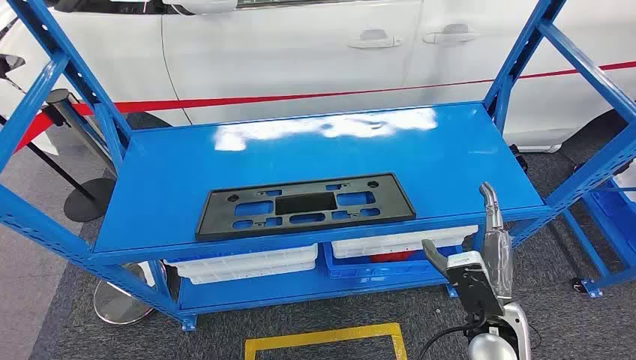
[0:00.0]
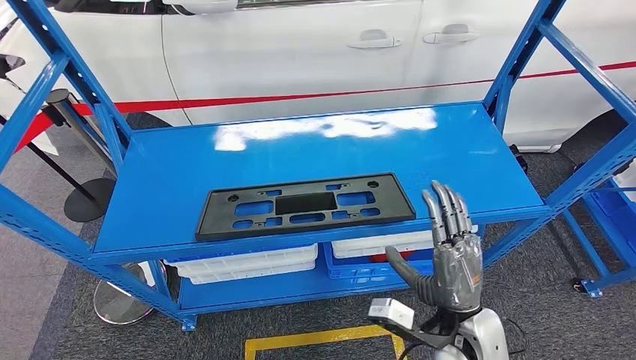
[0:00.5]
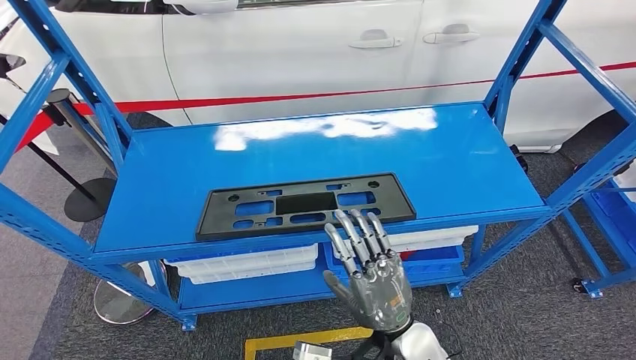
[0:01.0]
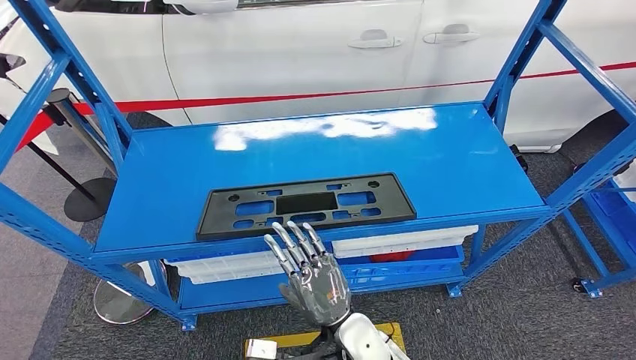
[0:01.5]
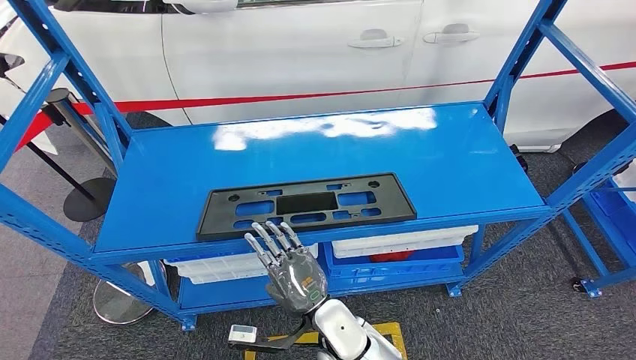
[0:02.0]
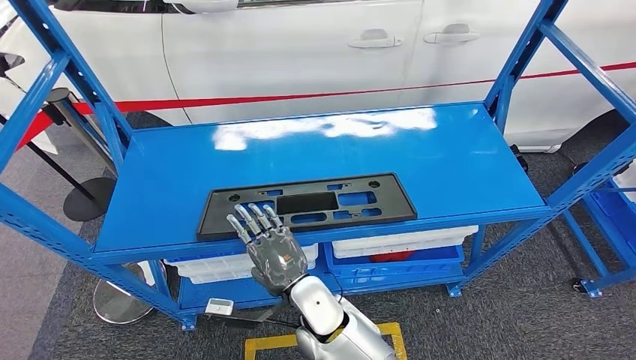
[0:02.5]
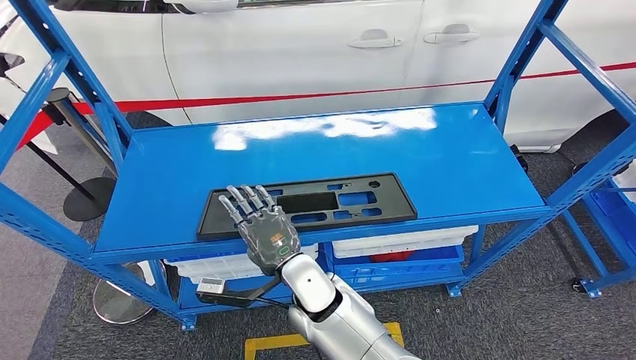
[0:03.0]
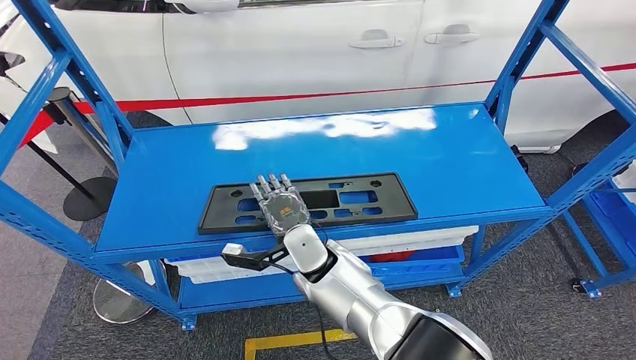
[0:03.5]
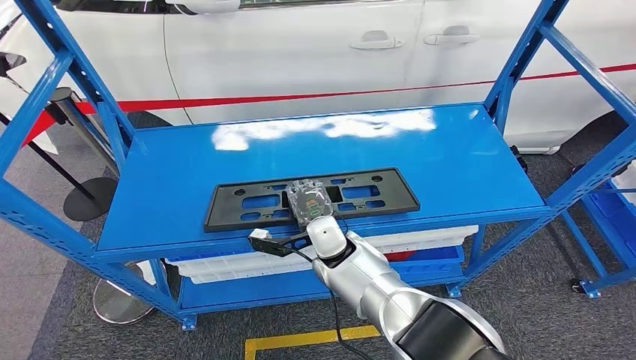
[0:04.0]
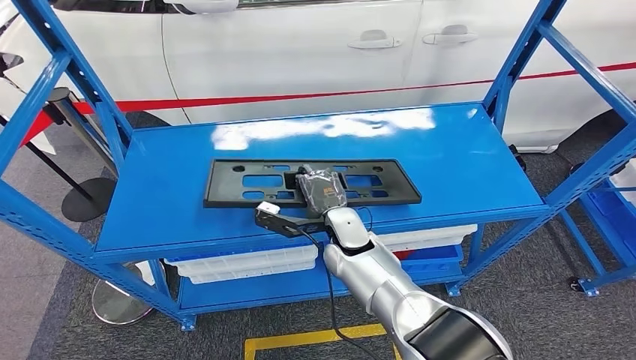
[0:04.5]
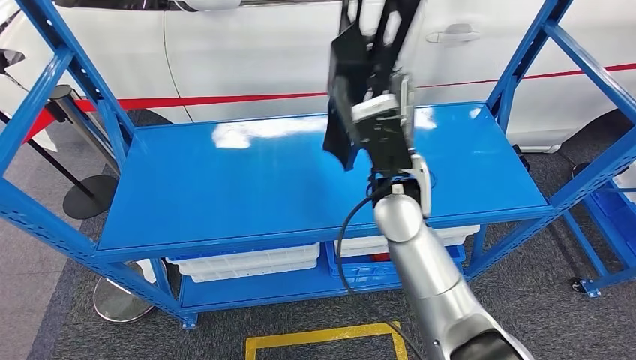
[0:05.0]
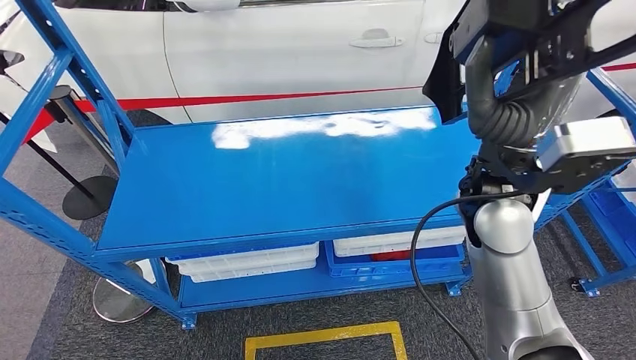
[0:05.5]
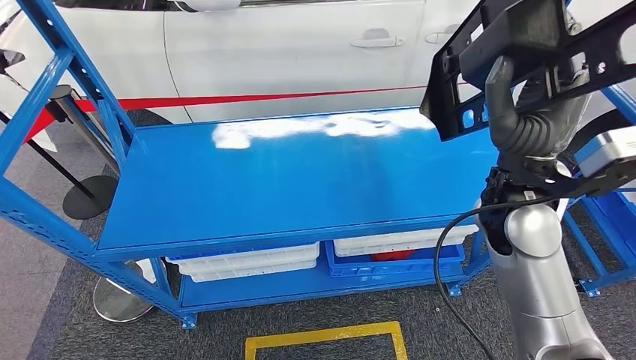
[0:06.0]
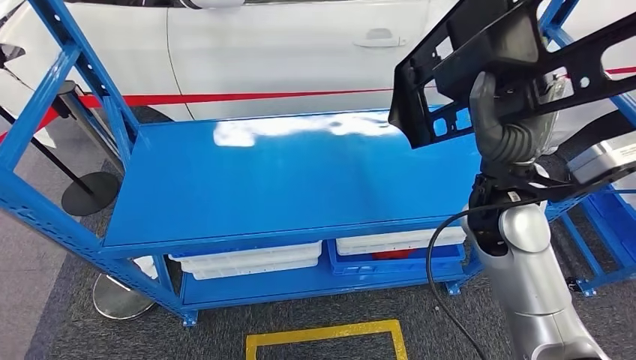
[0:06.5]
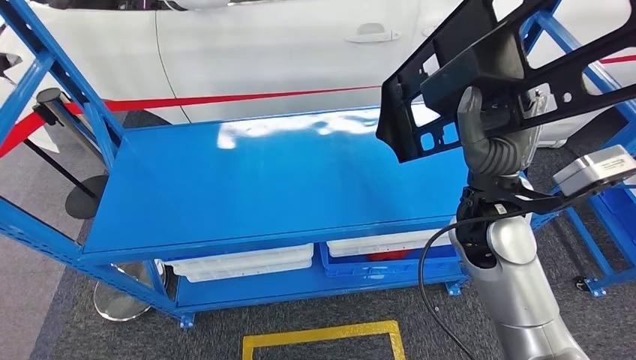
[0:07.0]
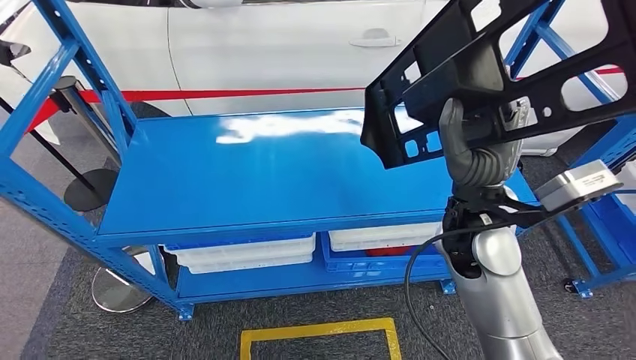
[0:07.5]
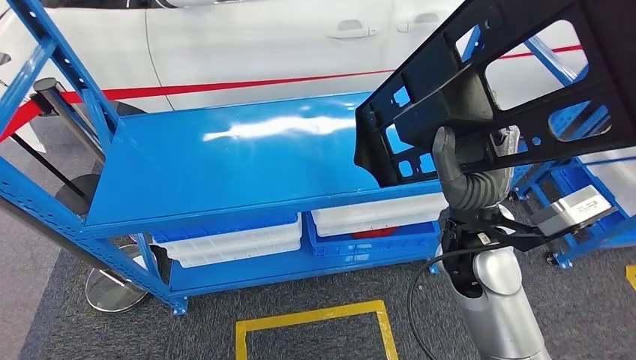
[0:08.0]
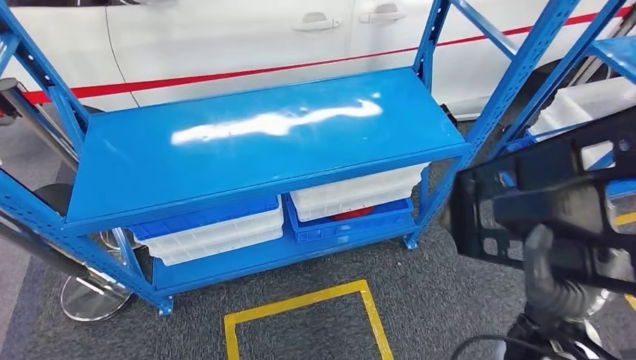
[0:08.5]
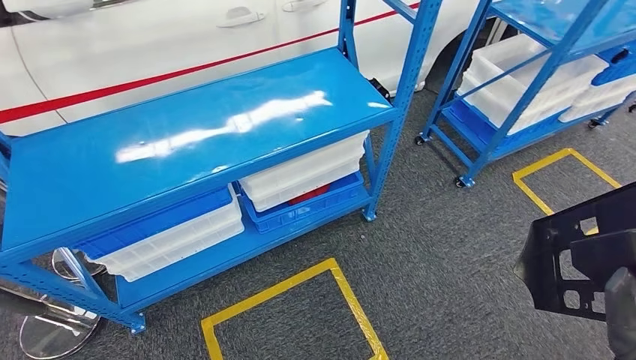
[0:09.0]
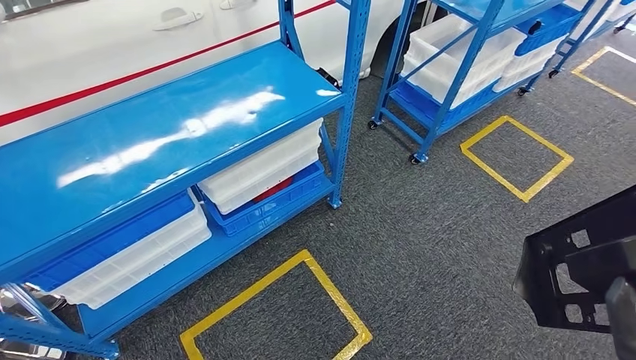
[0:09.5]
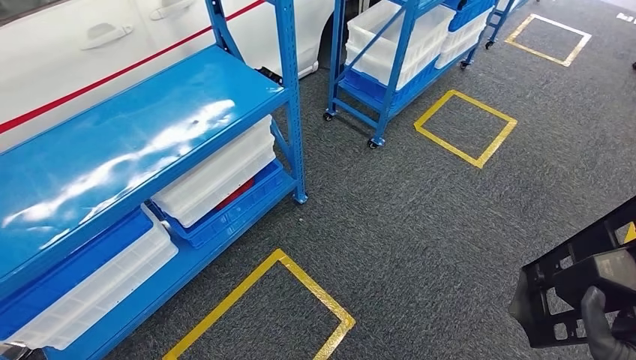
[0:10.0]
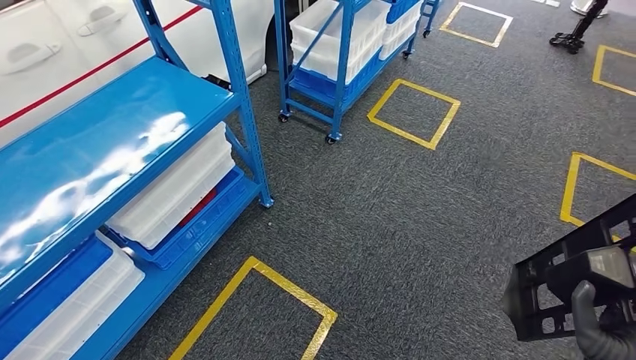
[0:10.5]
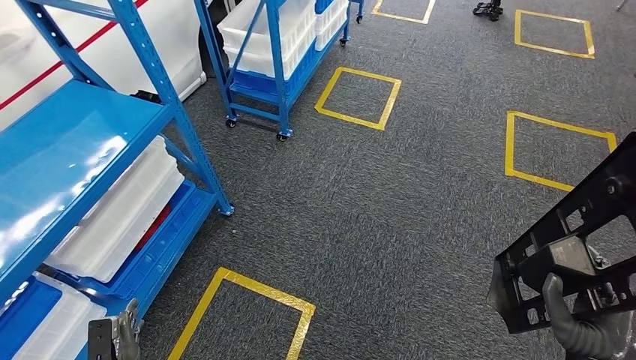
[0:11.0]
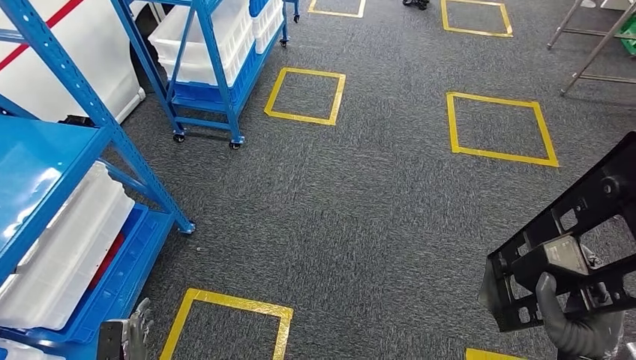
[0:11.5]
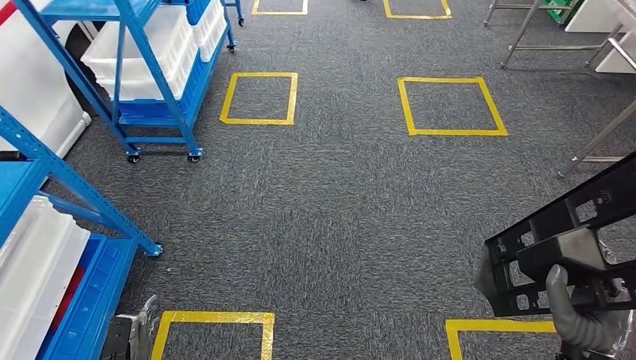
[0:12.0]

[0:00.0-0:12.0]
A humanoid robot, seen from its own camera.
Step, 0:00.0 to 0:06.0: Pick up the large material from the shelf.
0:02.0 to 0:04.0: The right hand goes roughly 15 cm forward.

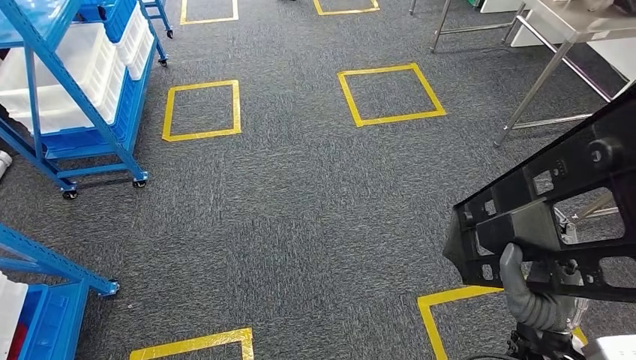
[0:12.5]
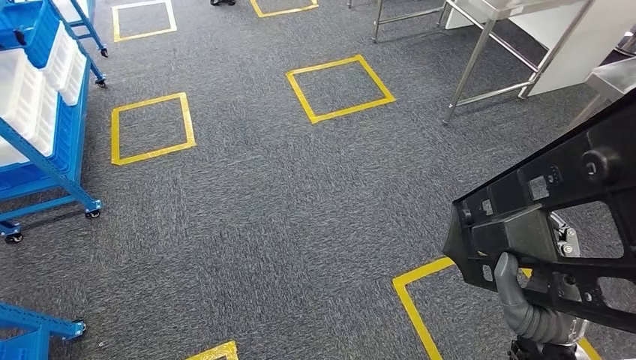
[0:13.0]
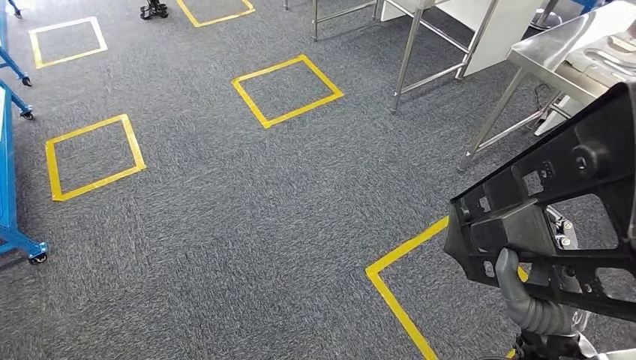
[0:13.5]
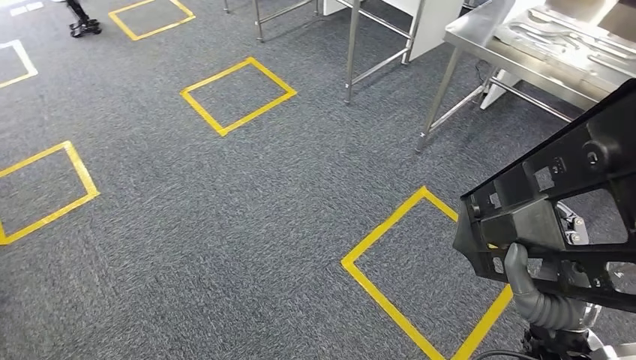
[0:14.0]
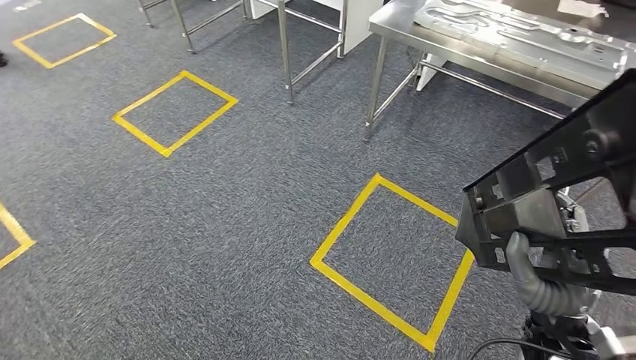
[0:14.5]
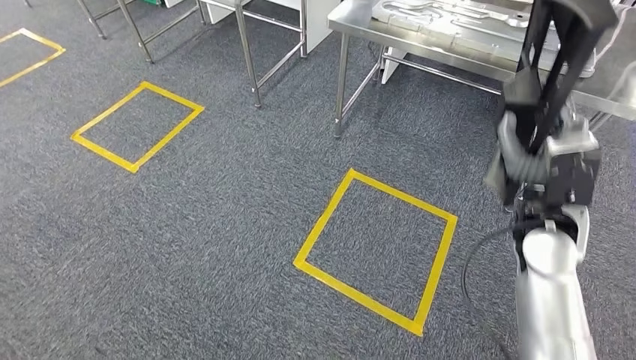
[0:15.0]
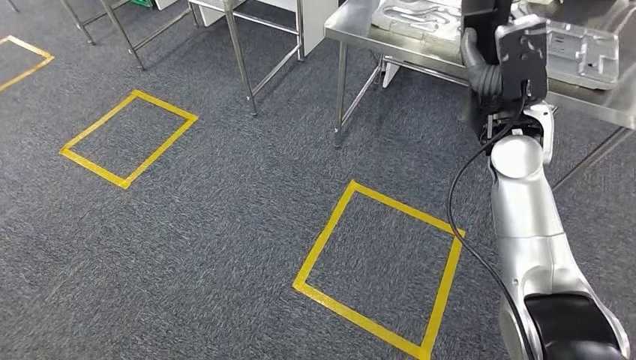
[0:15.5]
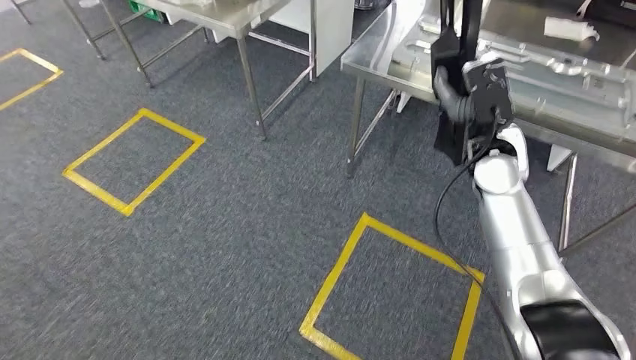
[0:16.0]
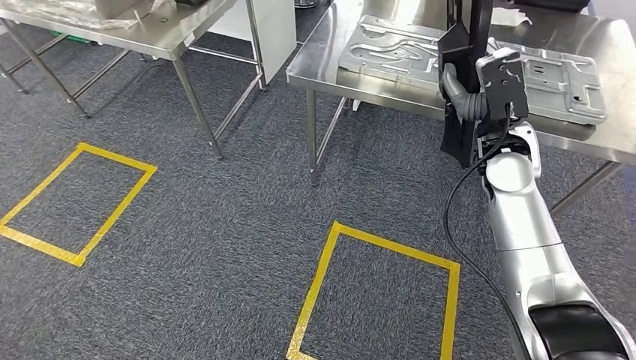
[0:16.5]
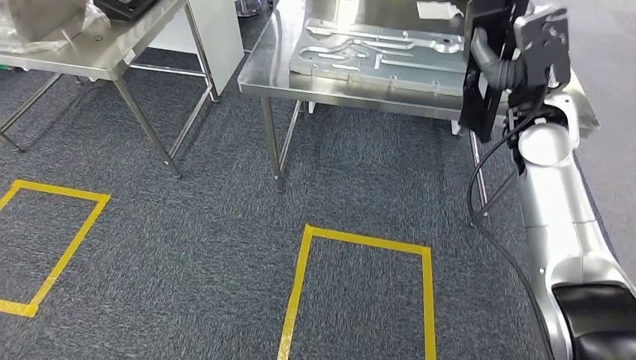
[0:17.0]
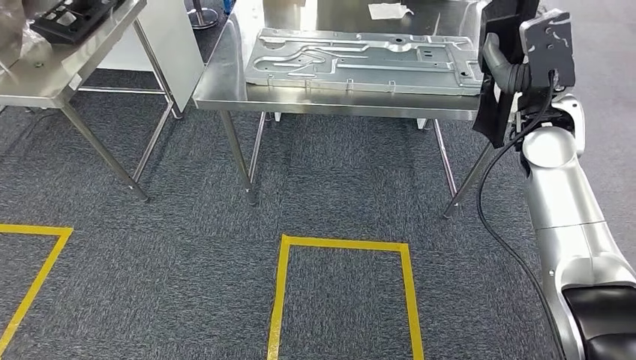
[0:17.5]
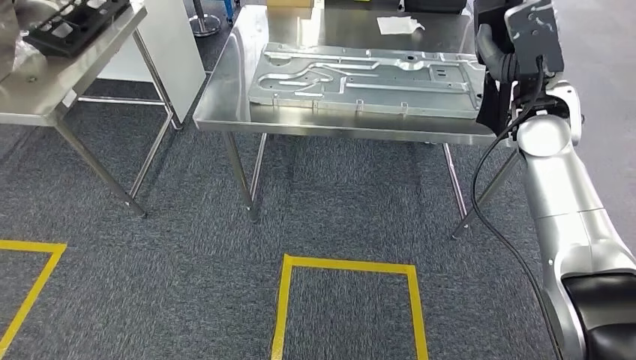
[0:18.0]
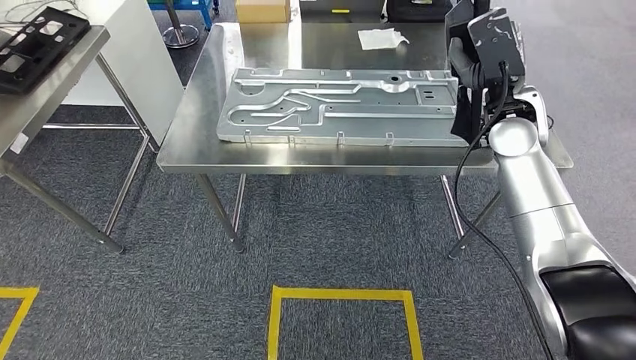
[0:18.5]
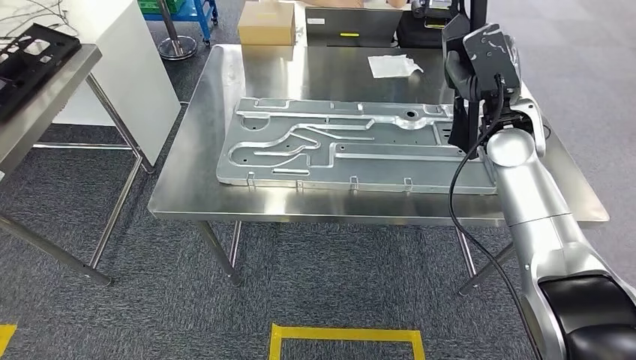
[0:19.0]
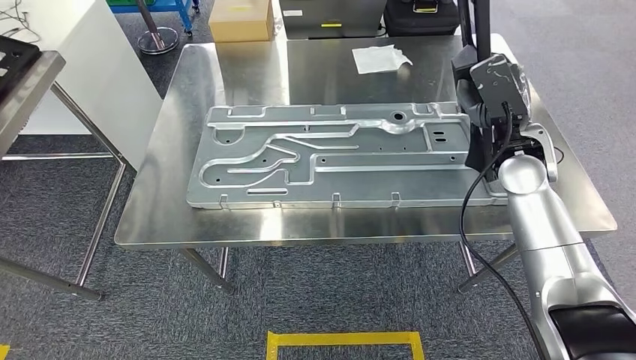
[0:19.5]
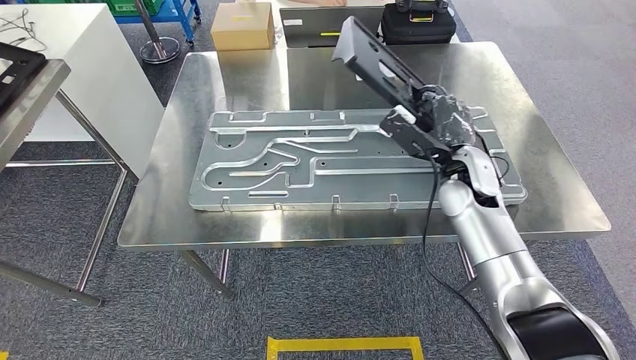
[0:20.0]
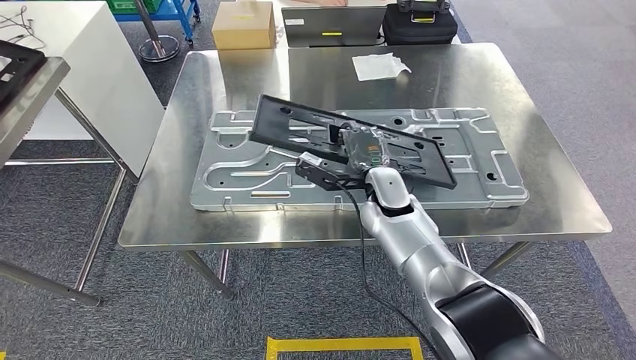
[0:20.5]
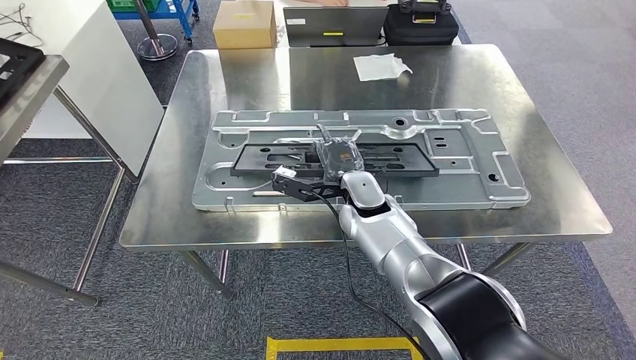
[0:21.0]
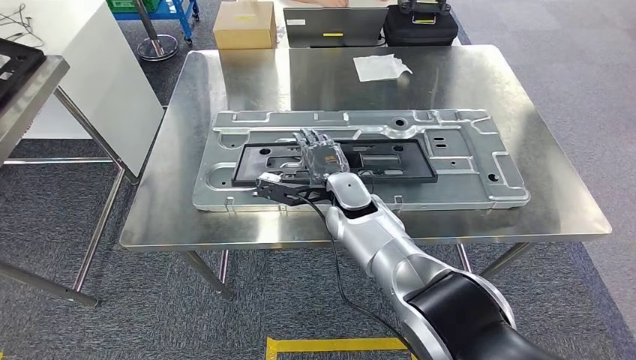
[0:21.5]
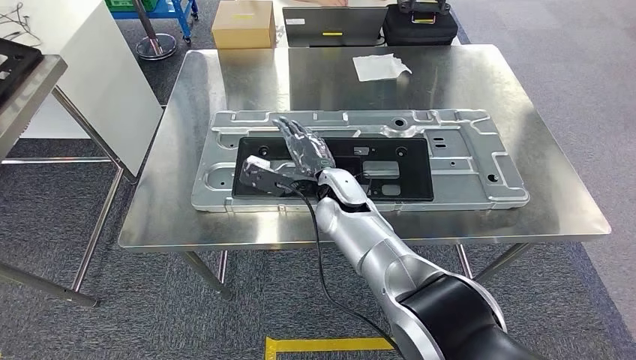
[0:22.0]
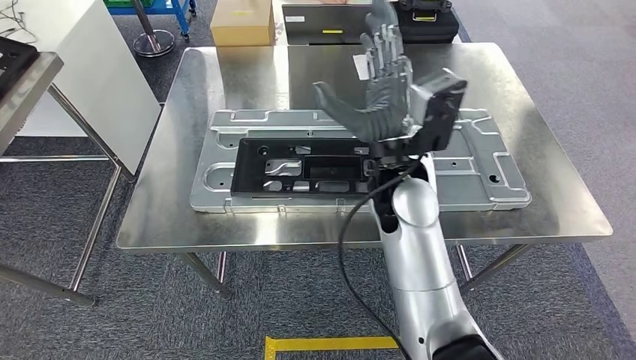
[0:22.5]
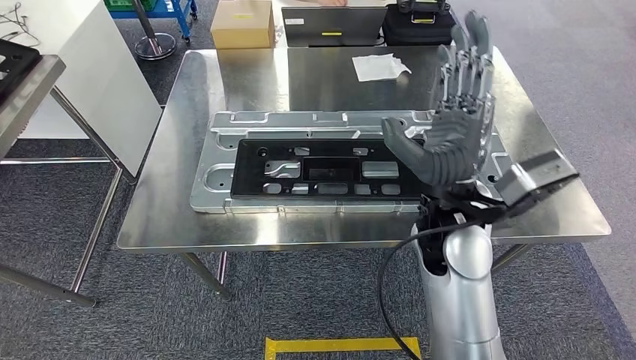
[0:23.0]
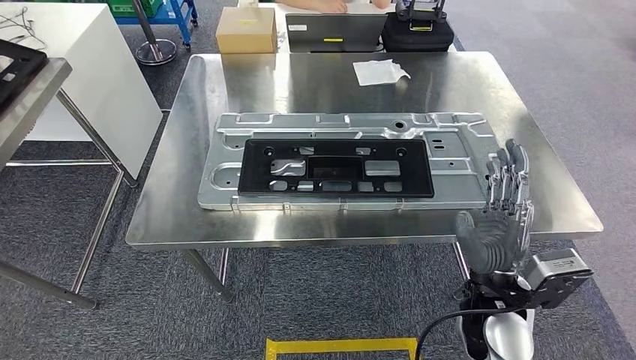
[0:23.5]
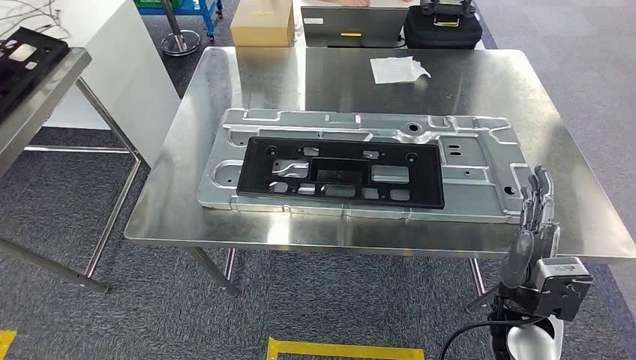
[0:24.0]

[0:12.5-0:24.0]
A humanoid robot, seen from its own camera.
Step, 0:12.5 to 0:17.5: Move the large material to the front of the workbench.
